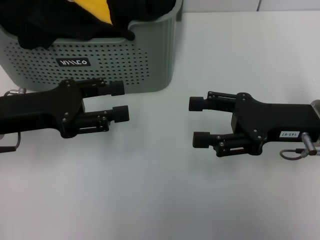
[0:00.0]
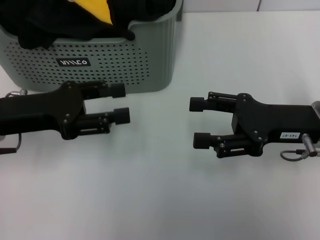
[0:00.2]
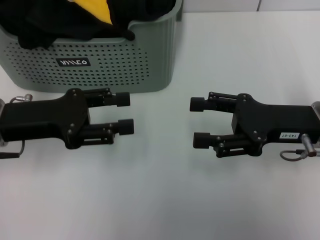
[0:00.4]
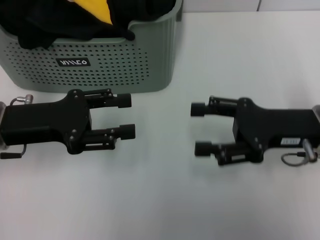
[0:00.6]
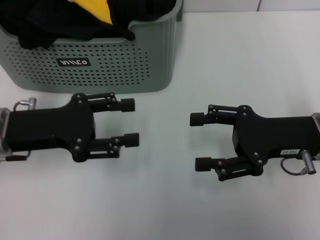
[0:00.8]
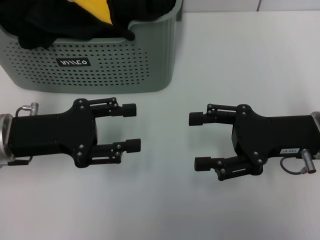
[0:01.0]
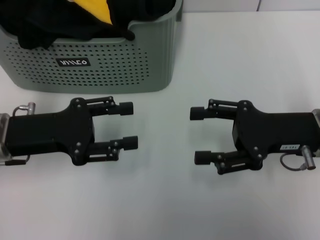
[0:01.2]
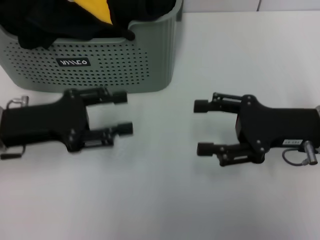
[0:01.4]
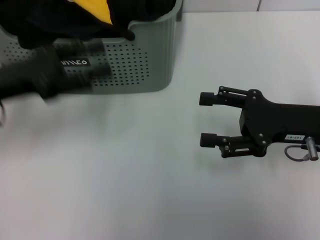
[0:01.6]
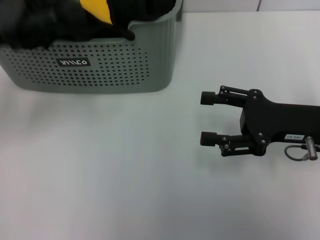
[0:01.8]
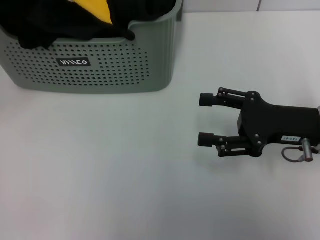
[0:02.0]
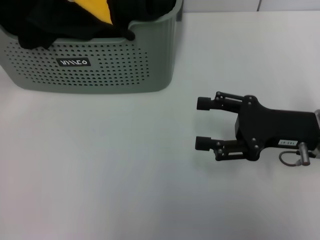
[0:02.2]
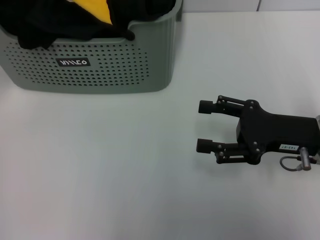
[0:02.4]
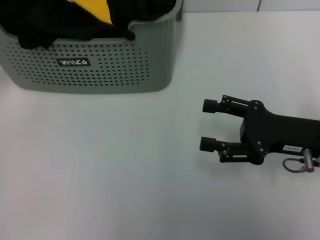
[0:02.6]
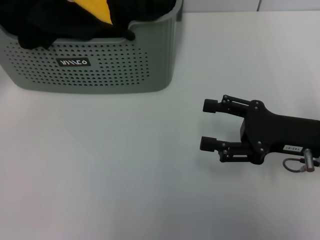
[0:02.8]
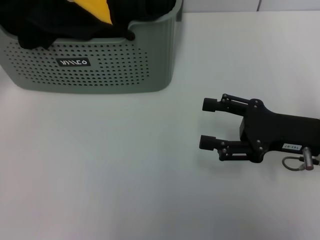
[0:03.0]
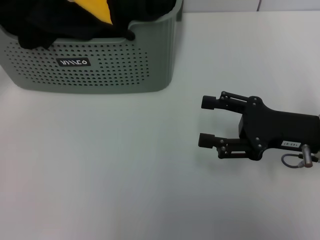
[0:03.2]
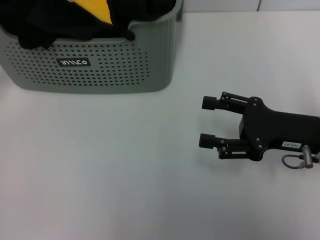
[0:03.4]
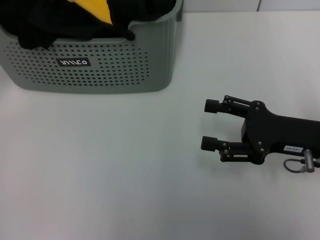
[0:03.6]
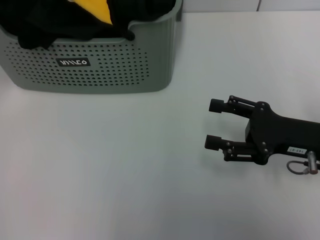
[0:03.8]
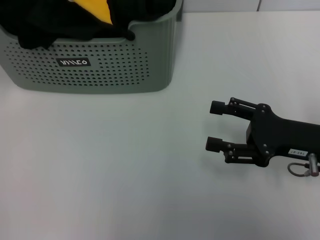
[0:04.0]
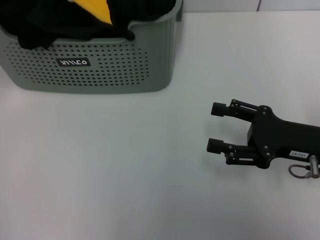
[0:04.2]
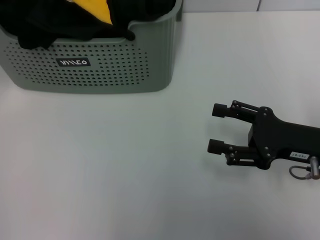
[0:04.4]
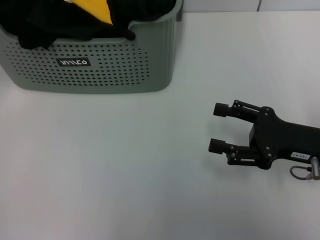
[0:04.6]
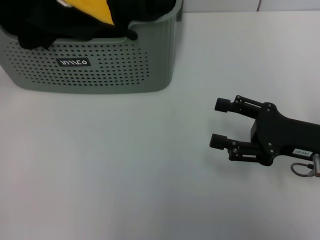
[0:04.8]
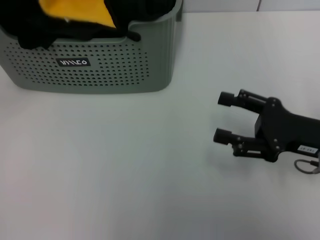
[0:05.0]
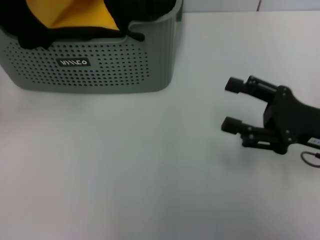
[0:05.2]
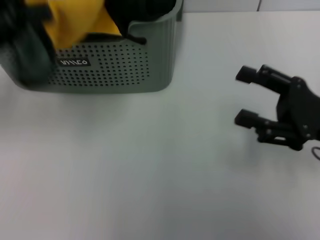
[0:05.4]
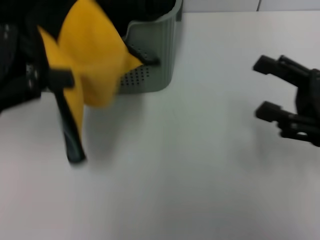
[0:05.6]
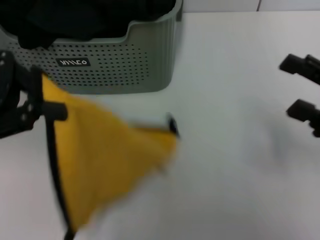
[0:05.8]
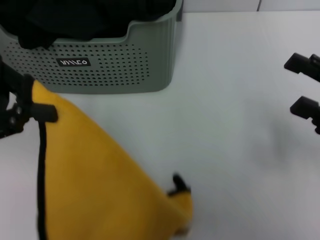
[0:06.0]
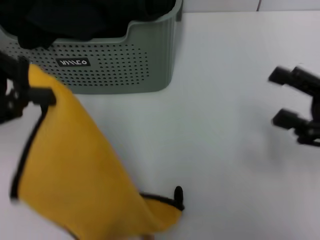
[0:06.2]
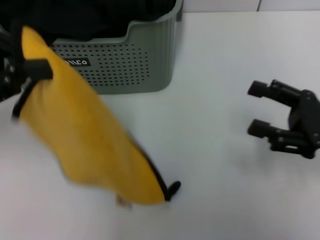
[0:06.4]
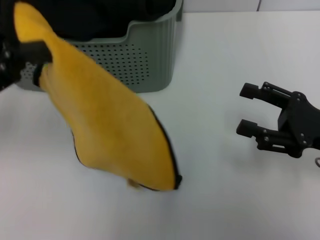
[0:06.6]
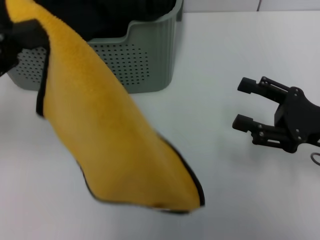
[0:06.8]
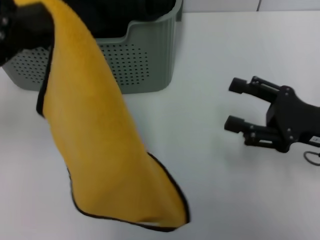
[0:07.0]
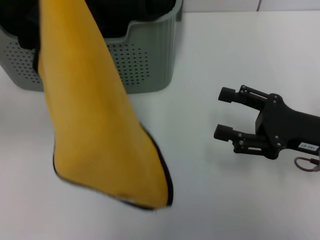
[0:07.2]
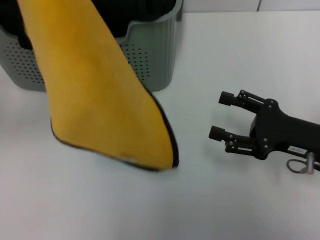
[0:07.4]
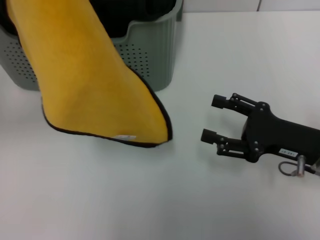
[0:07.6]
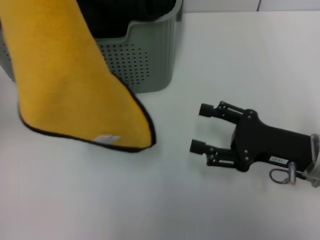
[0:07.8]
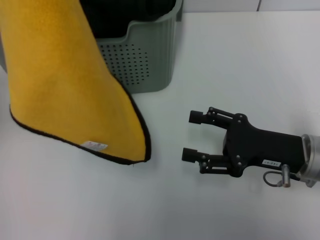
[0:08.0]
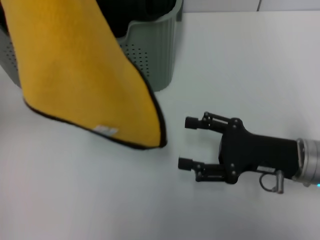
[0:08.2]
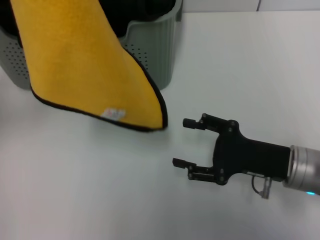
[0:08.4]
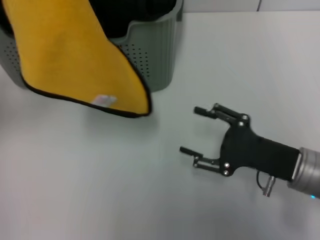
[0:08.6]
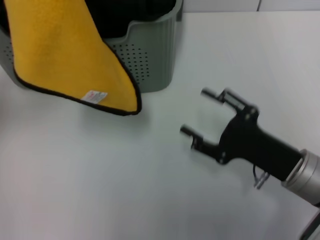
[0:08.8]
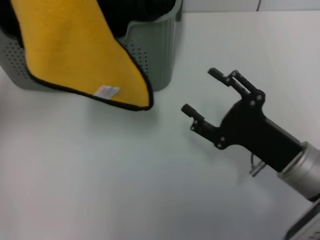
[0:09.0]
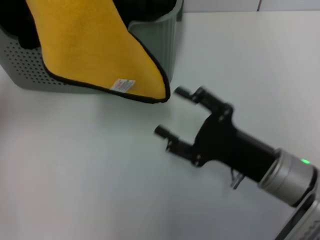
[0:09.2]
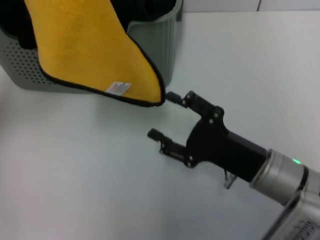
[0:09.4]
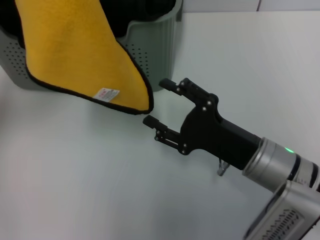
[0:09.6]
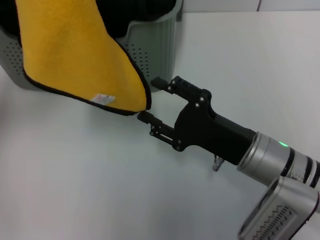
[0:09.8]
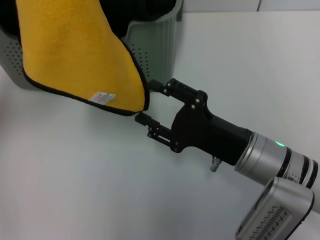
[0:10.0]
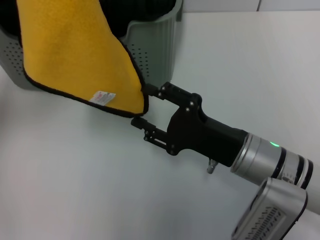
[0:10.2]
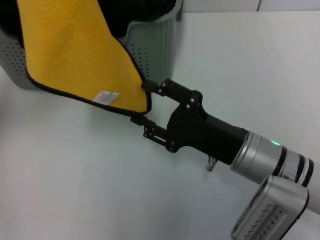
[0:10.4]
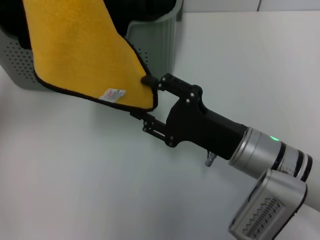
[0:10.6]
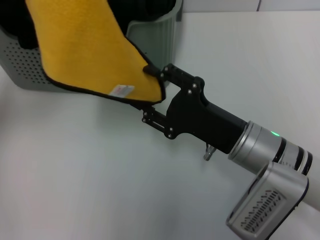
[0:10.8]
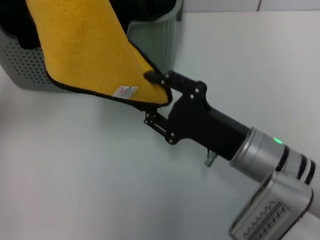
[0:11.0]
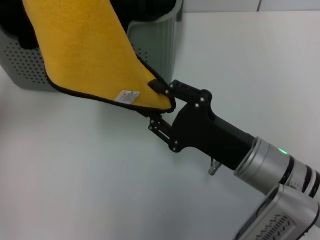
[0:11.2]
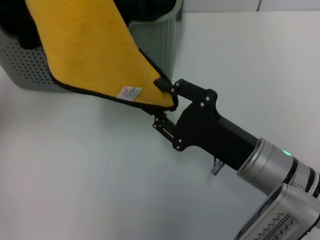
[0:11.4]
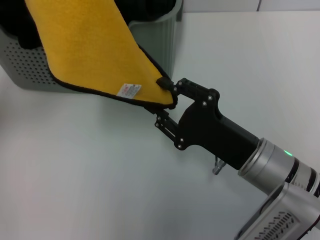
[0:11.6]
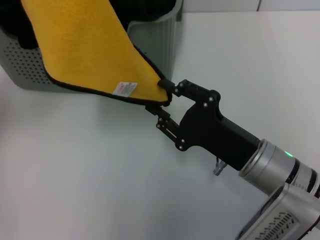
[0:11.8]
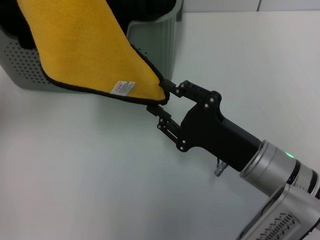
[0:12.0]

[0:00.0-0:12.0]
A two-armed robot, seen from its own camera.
Task of the whole recording: pick up the towel from the storage box and lay it flat on the table.
Step, 0:00.0 to 0:04.6: Pick up a towel with the left gripper.
0:00.0 to 0:01.6: The grippers stay close to where they were, moving slightly.
0:01.6 to 0:03.0: The left gripper shifts some 10 cm to the left and upward.
0:04.4 to 0:06.0: The left gripper travels backward and to the right by about 10 cm, and closes its fingers; the right gripper shifts some 5 cm to the right.
0:06.0 to 0:07.6: The right gripper heads to the left and downward, covering about 10 cm.
0:07.6 to 0:09.0: The right gripper heads to the left, covering roughly 5 cm.
0:09.0 to 0:10.4: The right gripper goes approximately 5 cm to the left.
0:10.4 to 0:12.0: There are only small adjustments of the grippers.

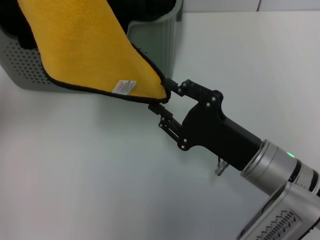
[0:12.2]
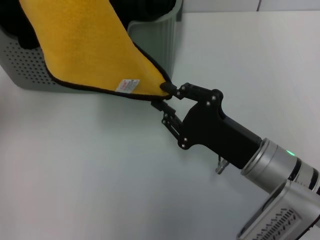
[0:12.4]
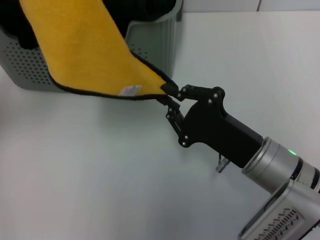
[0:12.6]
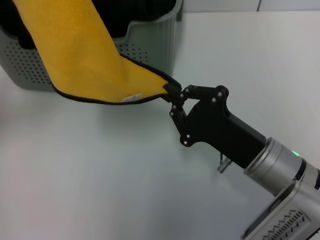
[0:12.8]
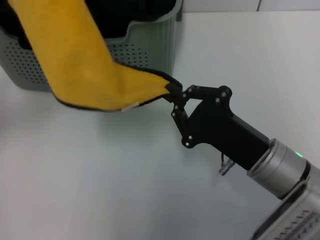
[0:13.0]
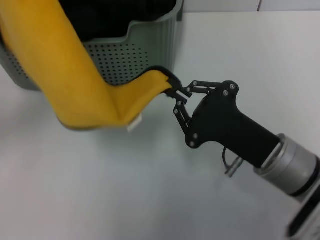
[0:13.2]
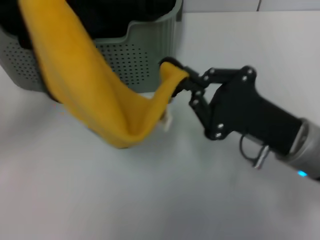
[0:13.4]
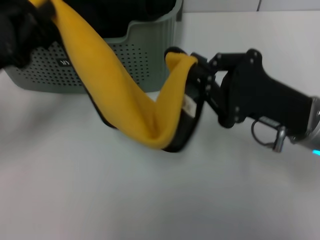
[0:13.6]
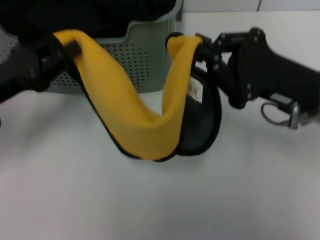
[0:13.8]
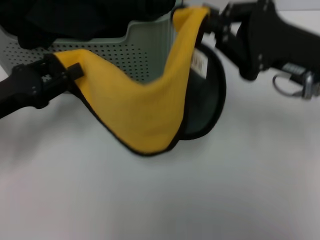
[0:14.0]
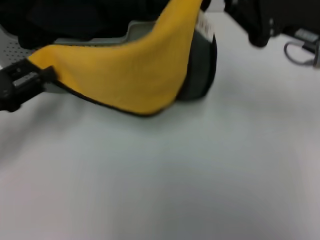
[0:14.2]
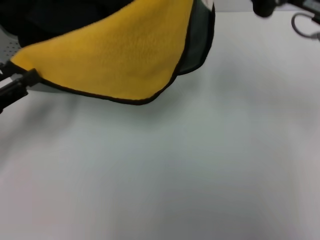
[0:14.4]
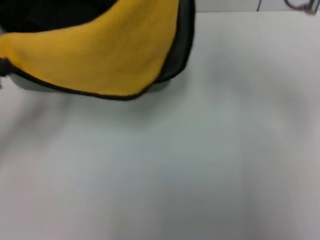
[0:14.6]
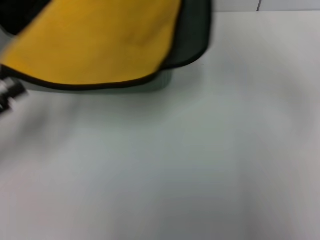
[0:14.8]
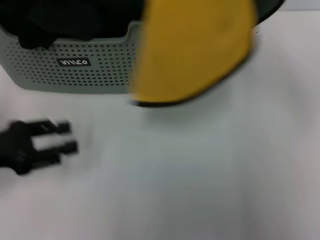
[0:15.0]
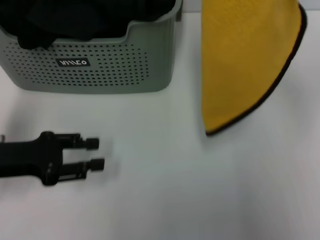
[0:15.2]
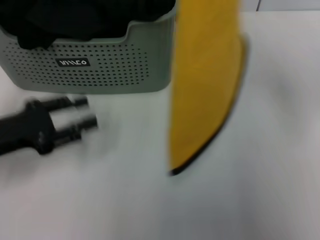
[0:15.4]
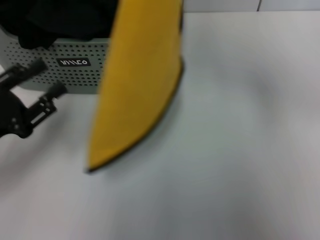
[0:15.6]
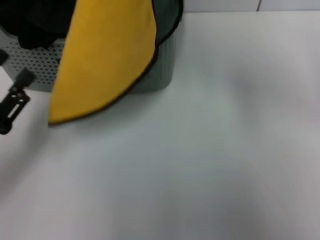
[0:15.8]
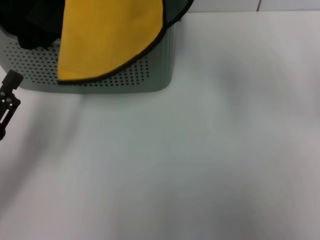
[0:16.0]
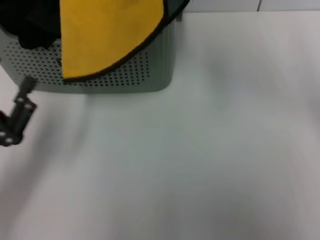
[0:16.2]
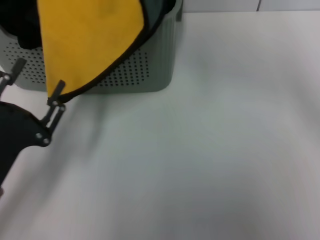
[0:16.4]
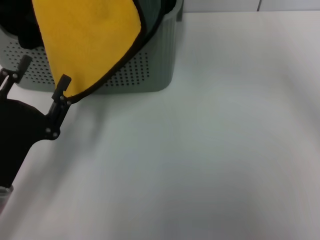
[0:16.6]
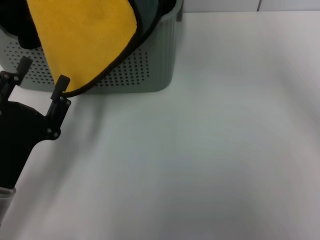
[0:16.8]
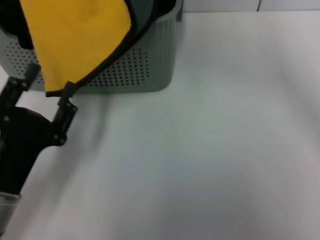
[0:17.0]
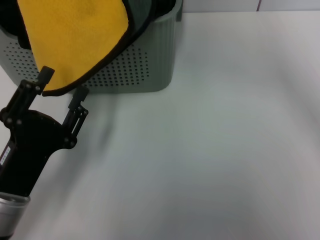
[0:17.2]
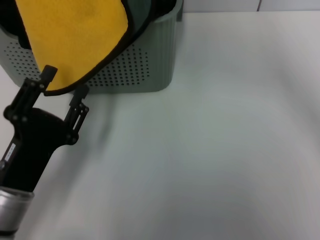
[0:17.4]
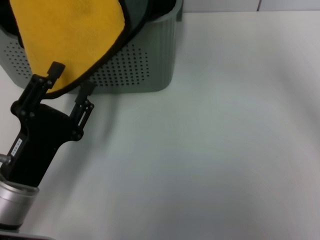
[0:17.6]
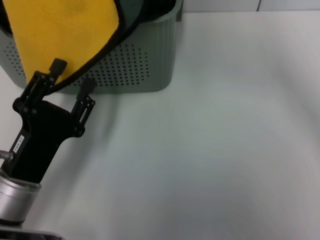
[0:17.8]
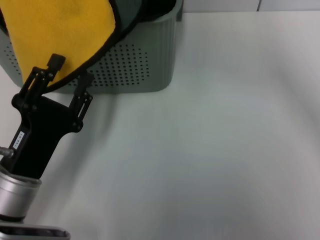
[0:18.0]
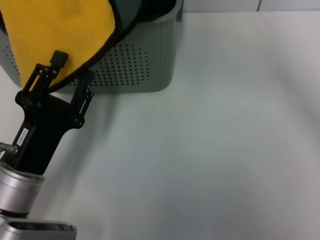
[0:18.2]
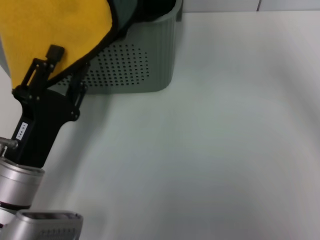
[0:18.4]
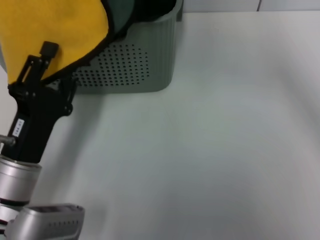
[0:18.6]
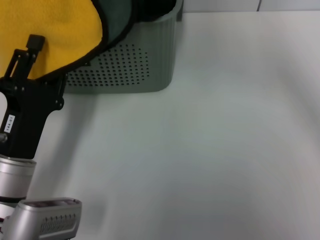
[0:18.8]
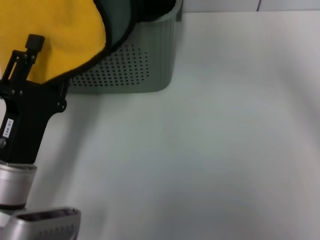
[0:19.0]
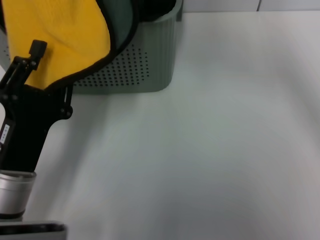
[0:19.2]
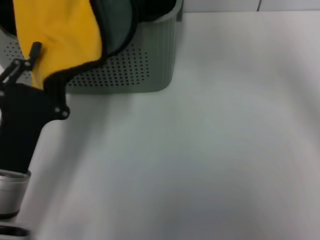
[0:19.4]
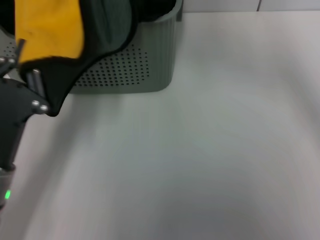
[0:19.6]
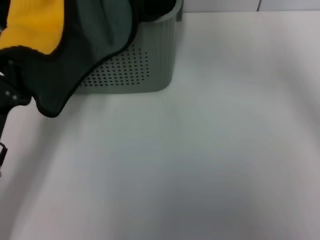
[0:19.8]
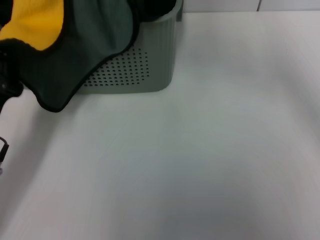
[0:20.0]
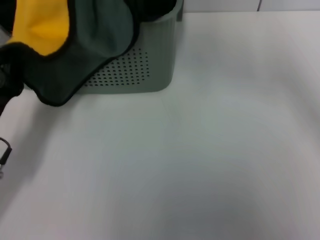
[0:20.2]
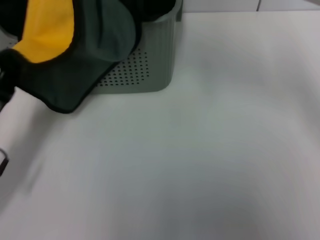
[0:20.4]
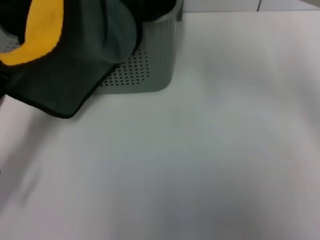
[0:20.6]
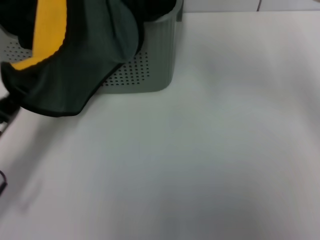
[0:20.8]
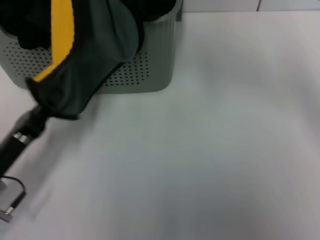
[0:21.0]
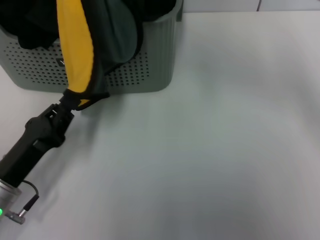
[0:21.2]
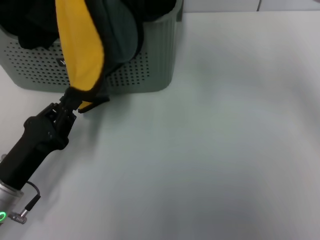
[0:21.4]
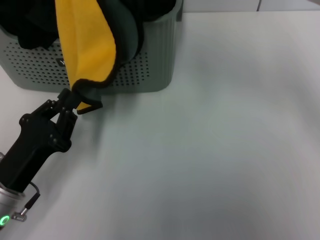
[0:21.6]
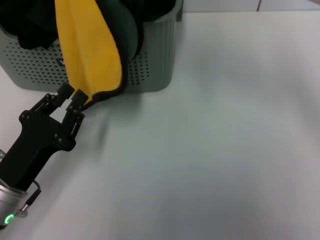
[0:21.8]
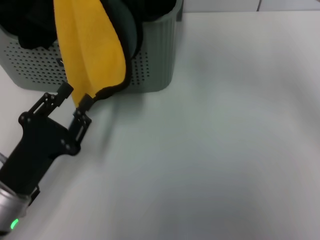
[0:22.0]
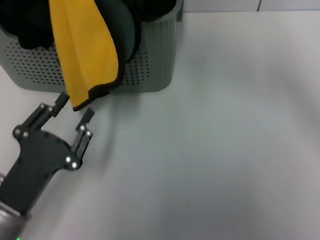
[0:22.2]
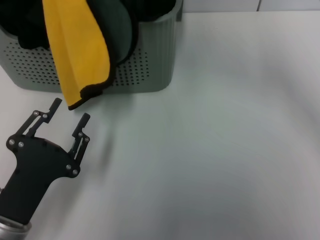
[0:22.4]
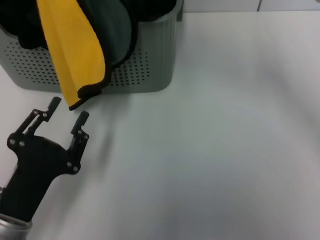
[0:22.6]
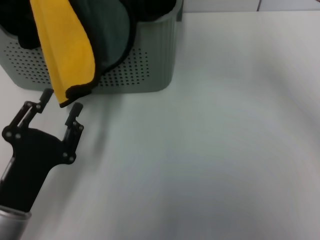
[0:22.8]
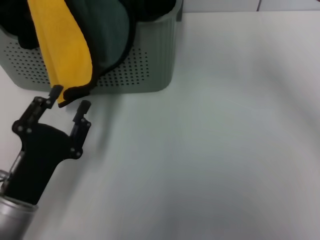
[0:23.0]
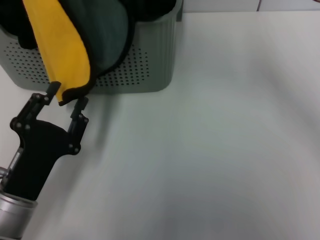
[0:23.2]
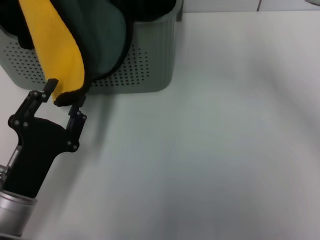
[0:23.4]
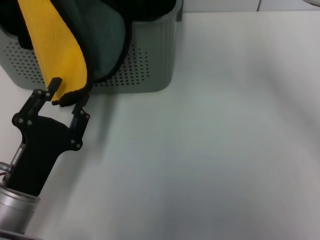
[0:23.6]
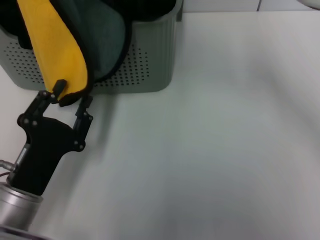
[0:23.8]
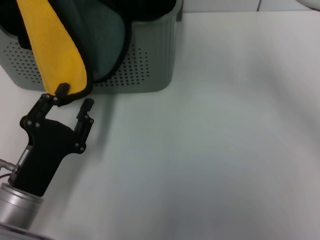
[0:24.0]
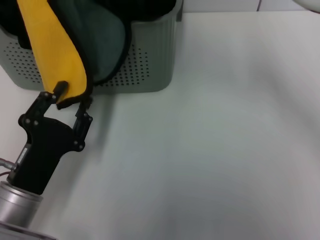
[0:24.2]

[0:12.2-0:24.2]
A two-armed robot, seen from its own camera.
Task of the whole recording: pick up the towel from the storage box and lay it flat on the table.
0:12.2 to 0:13.8: The right gripper moves upward, forward and to the right, some 10 cm, and closes its fingers. The left gripper travels downward by about 10 cm.
0:13.8 to 0:15.2: The left gripper opens its fingers. Meanwhile the right gripper moves upward, about 15 cm.
0:15.2 to 0:16.6: The left gripper goes some 10 cm backward and to the right, while the right gripper travels to the left by about 15 cm.
0:18.2 to 0:19.8: The right gripper moves roughly 5 cm; the left gripper closes up.
0:21.2 to 0:22.6: The left gripper moves backward, approximately 5 cm, and opens up.
0:22.6 to 0:24.2: The grippers make only small movements.
